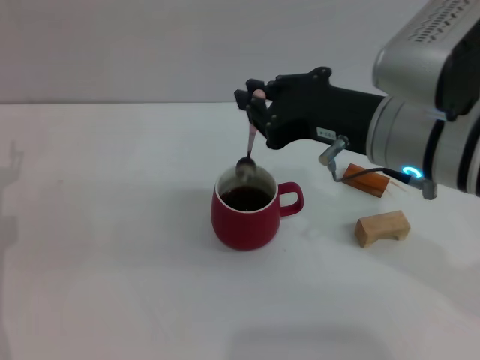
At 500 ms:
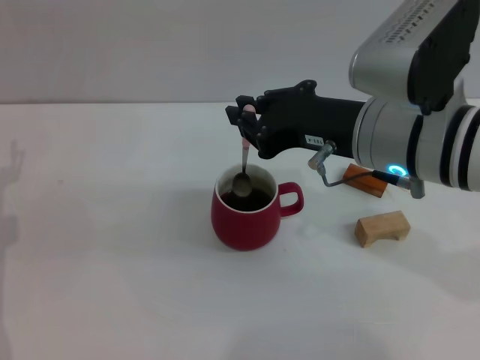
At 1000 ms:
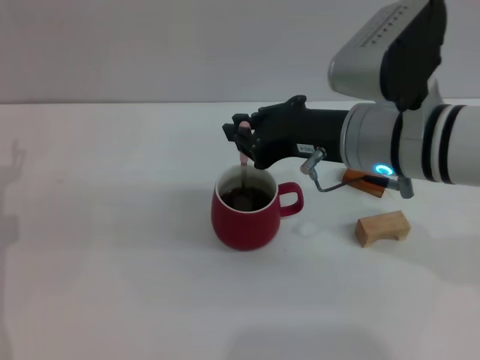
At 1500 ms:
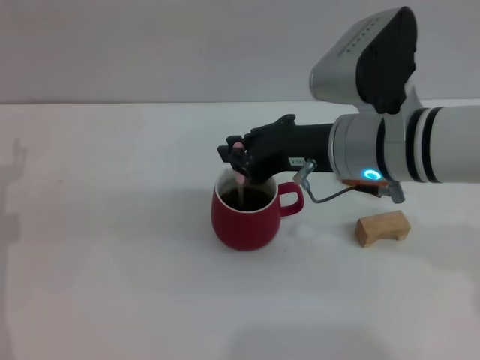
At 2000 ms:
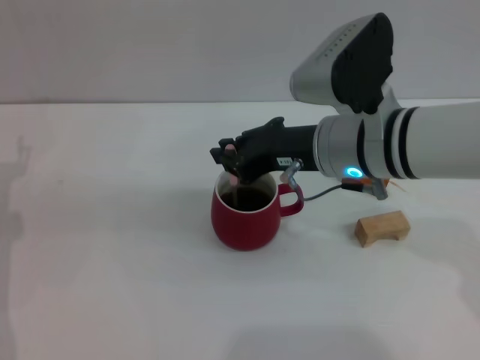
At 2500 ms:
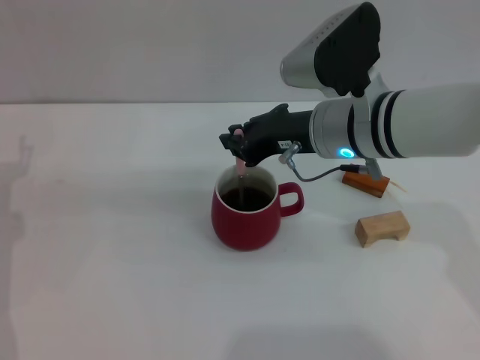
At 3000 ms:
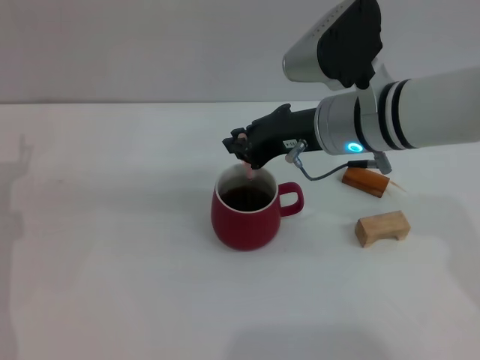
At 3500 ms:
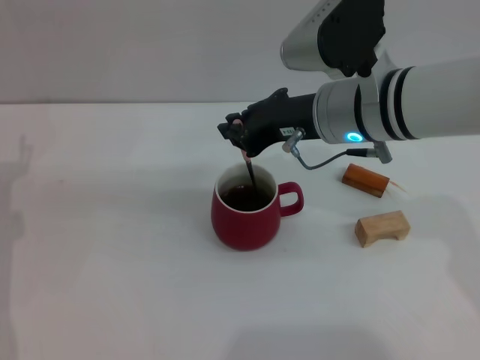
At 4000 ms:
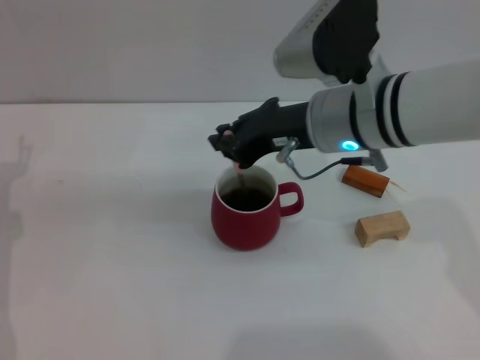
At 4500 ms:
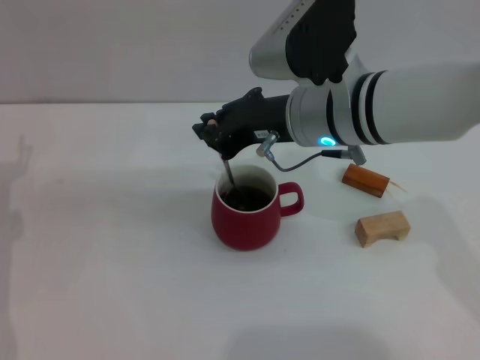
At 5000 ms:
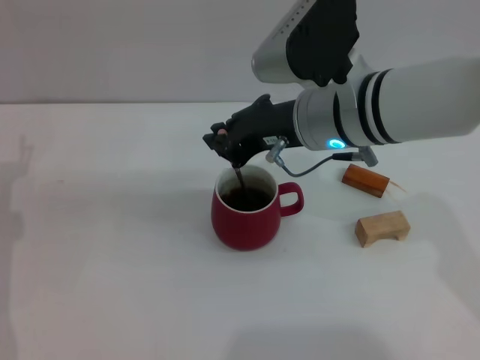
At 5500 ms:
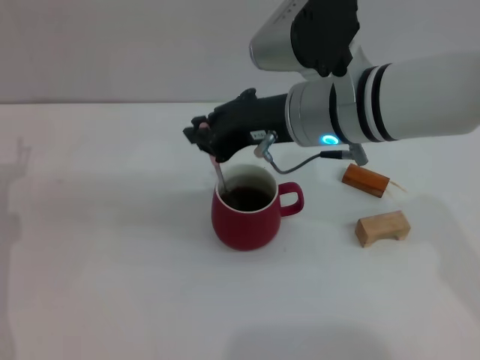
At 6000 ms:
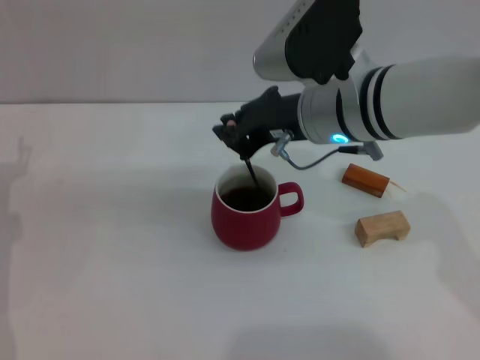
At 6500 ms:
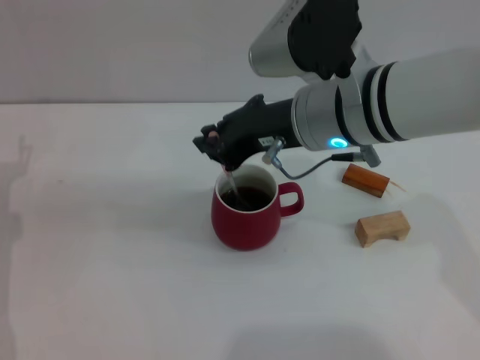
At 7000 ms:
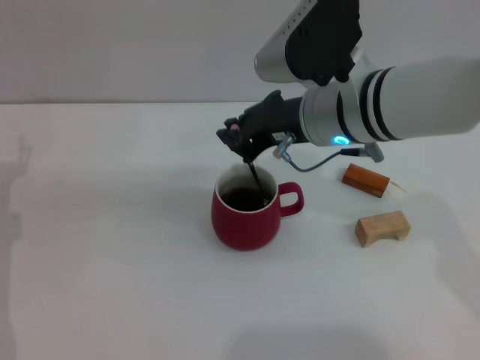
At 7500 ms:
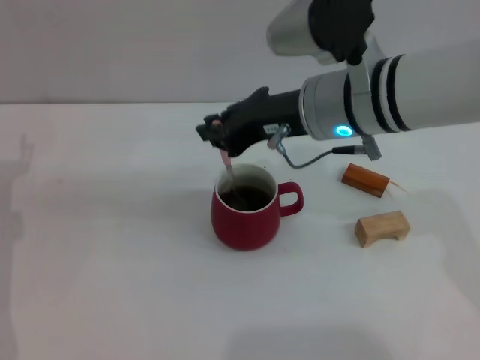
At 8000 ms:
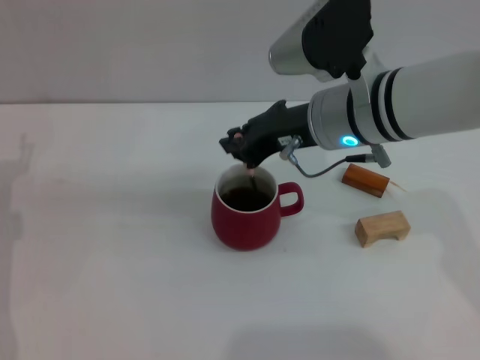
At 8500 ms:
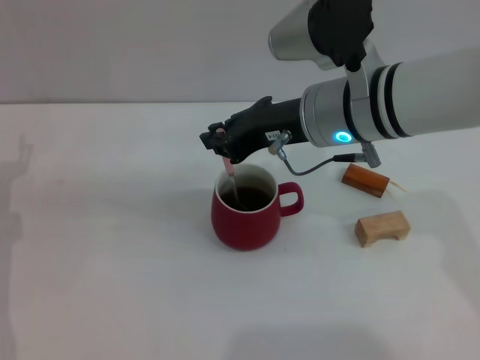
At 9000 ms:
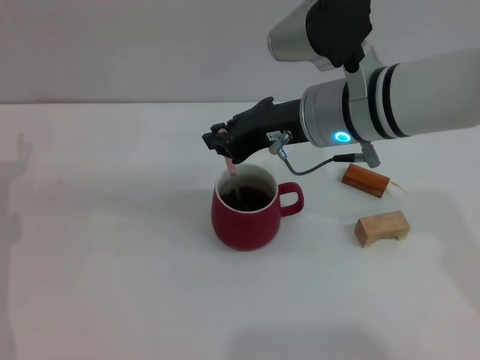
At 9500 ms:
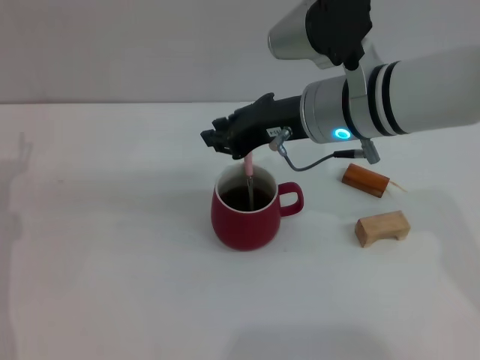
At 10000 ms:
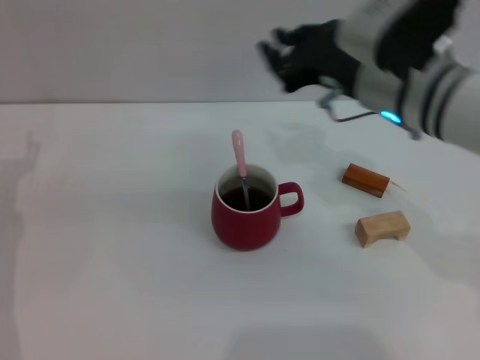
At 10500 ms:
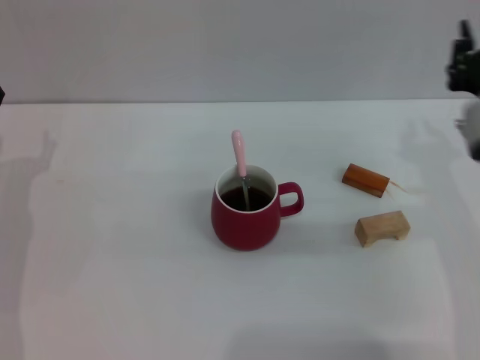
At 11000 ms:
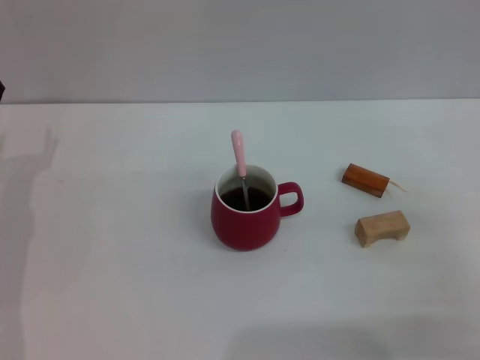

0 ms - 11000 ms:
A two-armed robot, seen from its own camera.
Task of the whole recording: Move the red cup to the center, lift the pink spoon, stir it three times in the cup, and put the spoon into the cup.
Step, 0 ms - 9000 ms: Stir the coffee in the cup with the right gripper.
0 ms - 2000 ms: The right gripper goes roughly 5 cm forward.
2000 ms - 9000 ms: The grippers stay close to where they were, moving slightly.
9000 ms - 11000 ms: The right gripper shifts approximately 30 cm to the right, backward and downward.

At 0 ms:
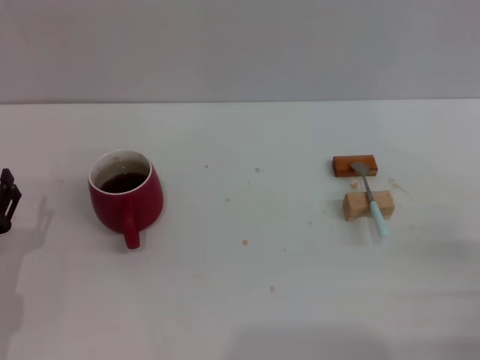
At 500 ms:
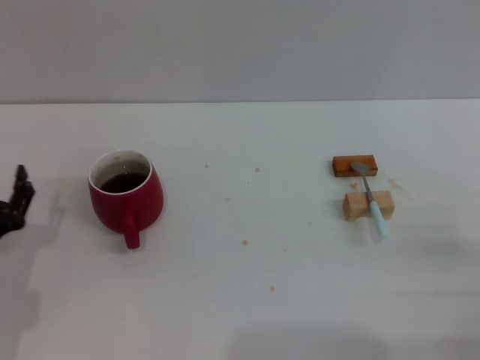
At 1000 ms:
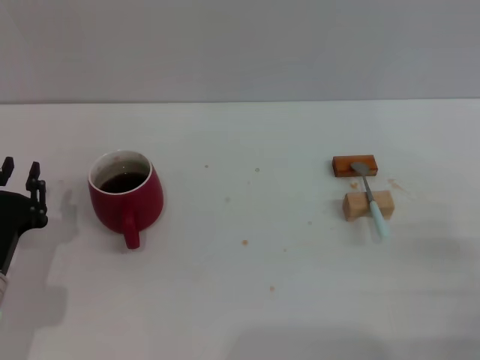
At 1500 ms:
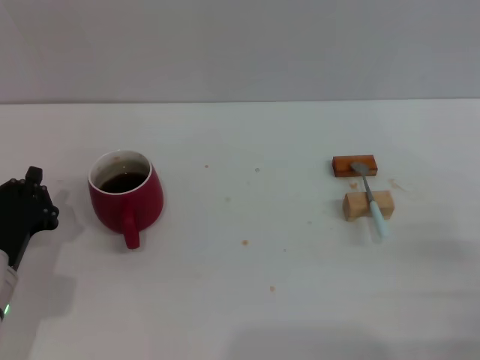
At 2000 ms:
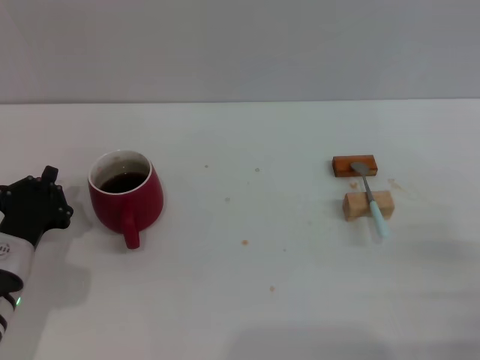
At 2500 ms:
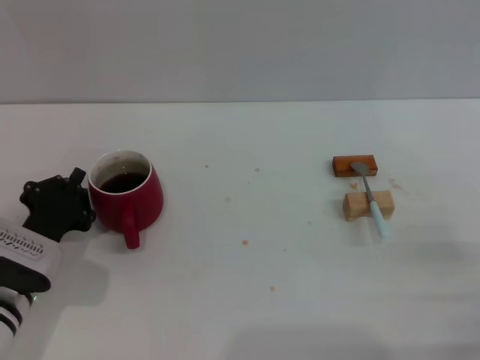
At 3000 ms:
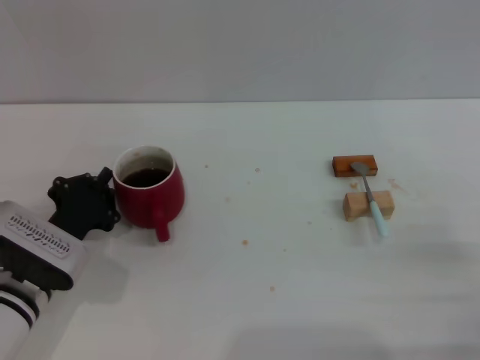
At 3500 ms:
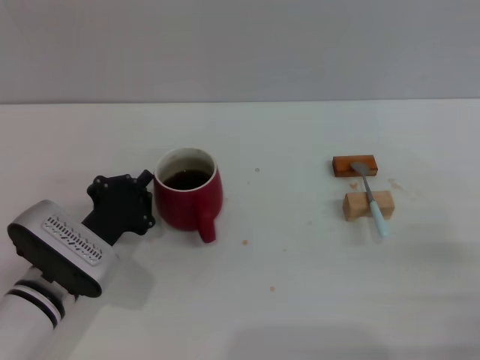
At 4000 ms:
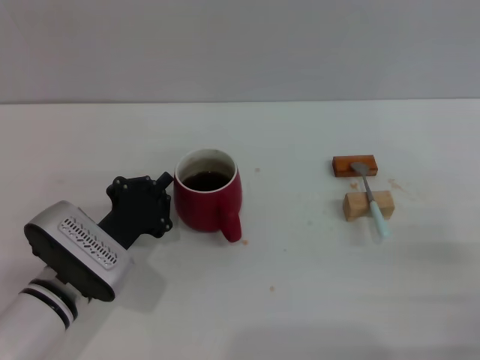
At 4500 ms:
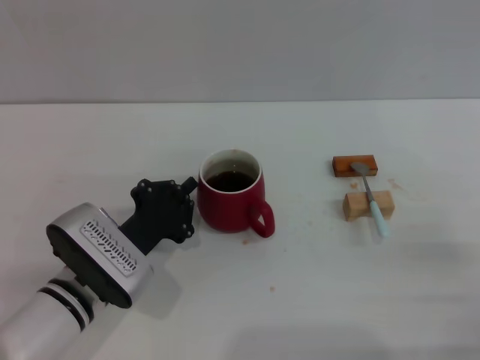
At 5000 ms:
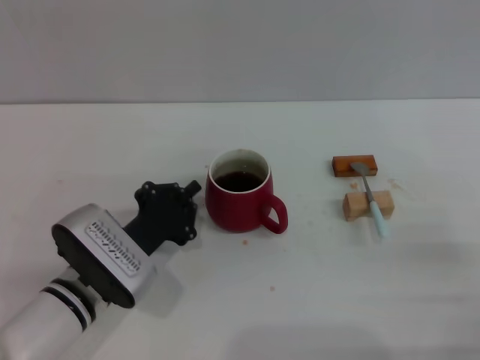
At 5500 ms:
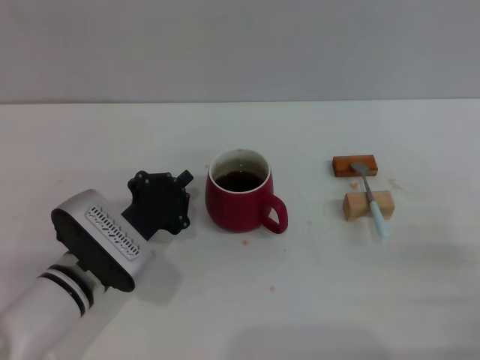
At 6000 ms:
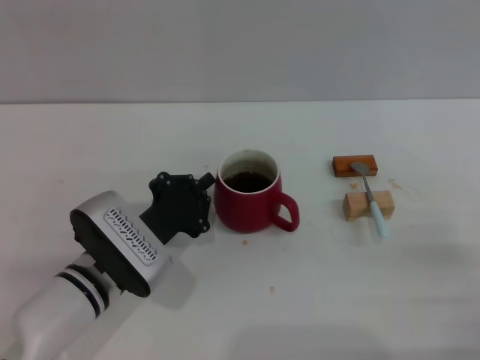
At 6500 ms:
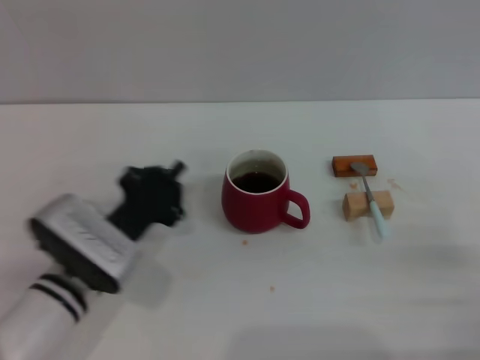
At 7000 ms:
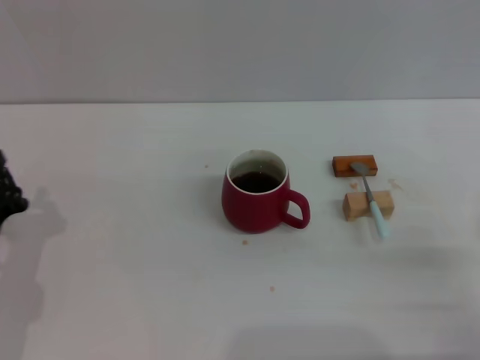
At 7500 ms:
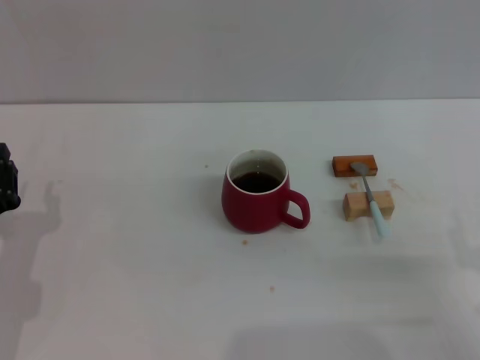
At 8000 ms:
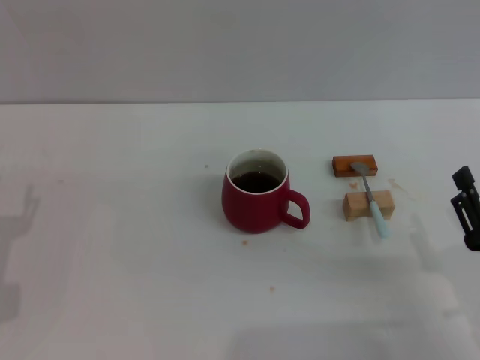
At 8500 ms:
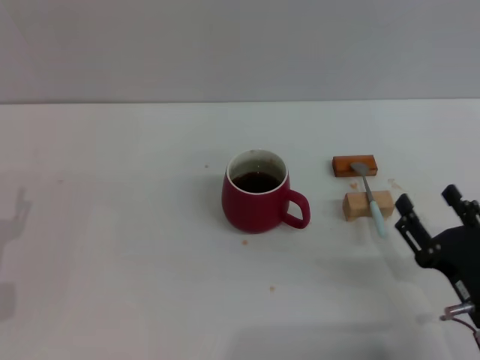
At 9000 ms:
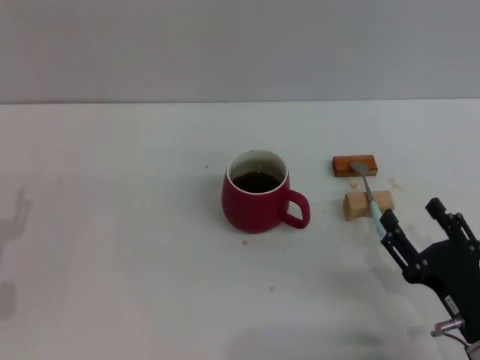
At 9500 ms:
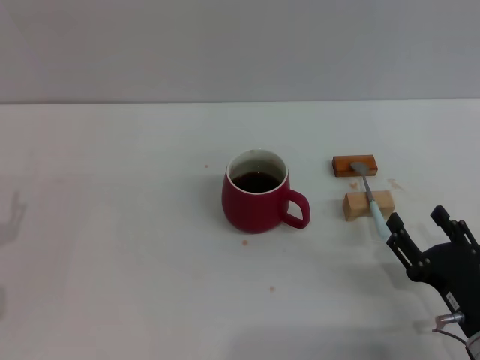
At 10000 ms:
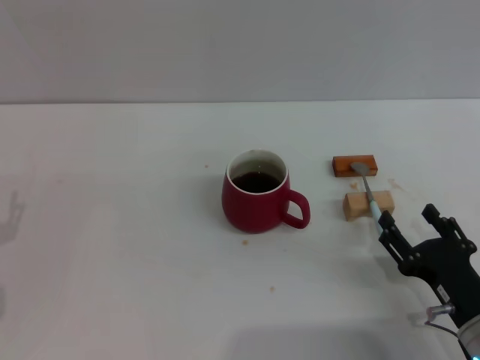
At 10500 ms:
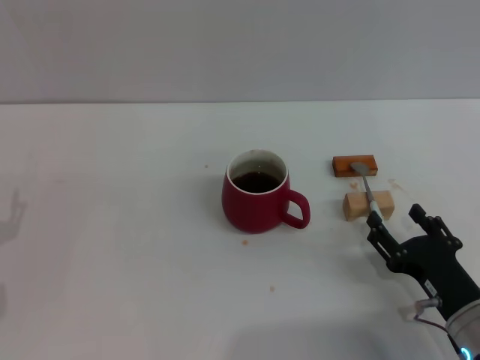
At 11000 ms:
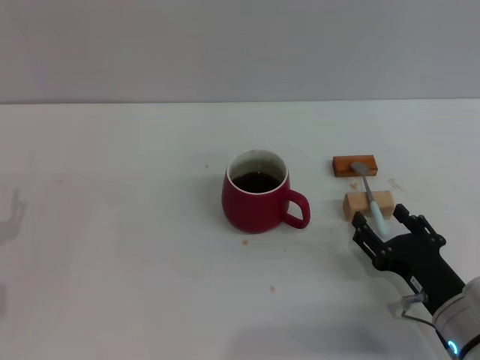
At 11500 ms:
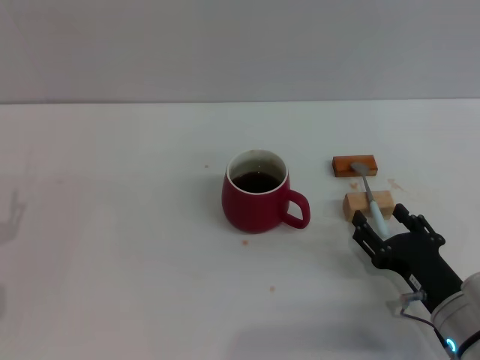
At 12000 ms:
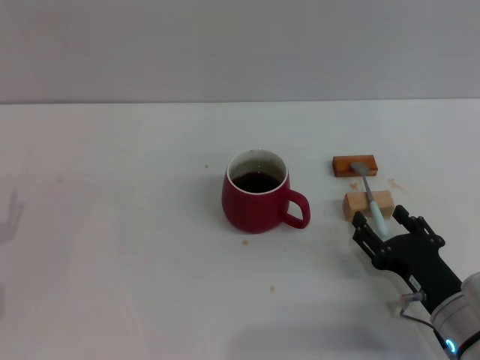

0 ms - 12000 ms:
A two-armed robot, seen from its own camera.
Task of the whole recording: Move the red cup to the center, lift the blue spoon, stir it three times in the cup, and put the spoon into the cup.
Step, 0 ms - 6500 ms: Move the cup with coffee to the center of view with the left gripper.
0 ms - 2000 ms: The left gripper changes place by approximately 5 cm, and closes its fingers.
2000 ms - 4000 ms: The left gripper is displaced to the right by some 5 cm.
4000 ms - 6000 ms: The grippers move only a little.
6000 ms - 8000 ms: The right gripper goes some 5 cm to the left, while the left gripper heads to the left, covering about 15 cm, and opens.
8000 ms - 10000 ms: The grippers make only small movements.
10000 ms - 12000 ms: The grippers make only small movements.

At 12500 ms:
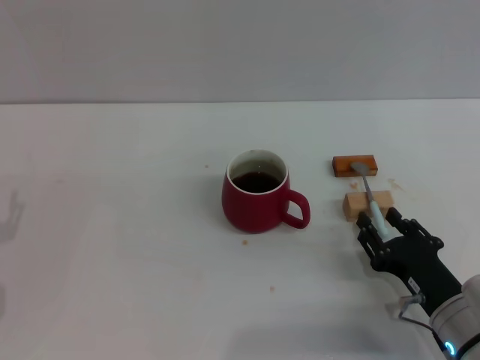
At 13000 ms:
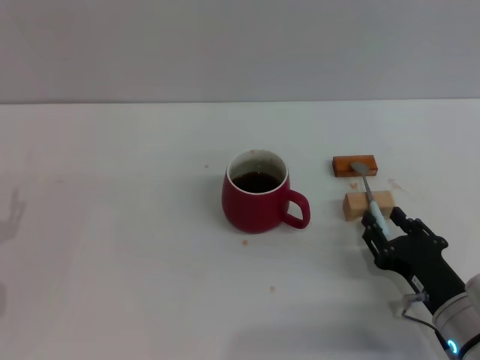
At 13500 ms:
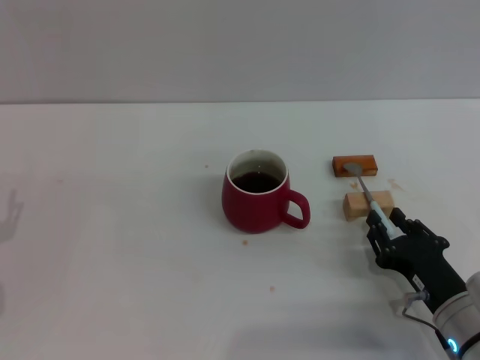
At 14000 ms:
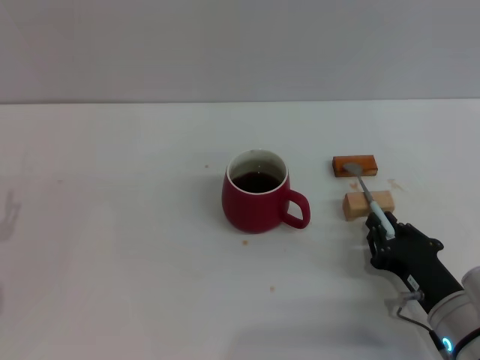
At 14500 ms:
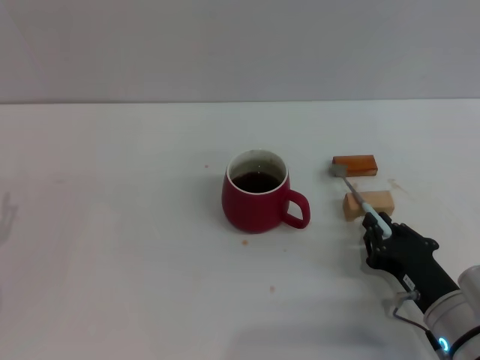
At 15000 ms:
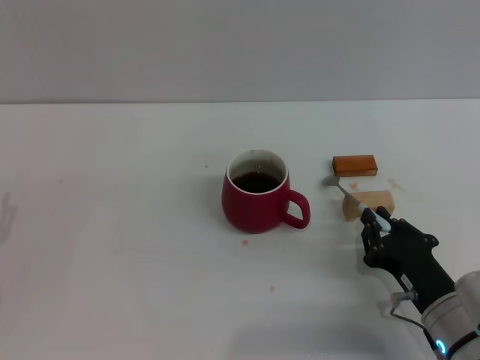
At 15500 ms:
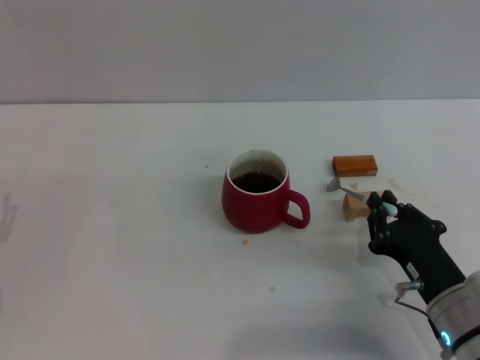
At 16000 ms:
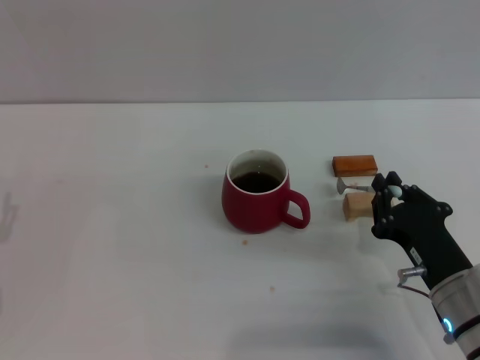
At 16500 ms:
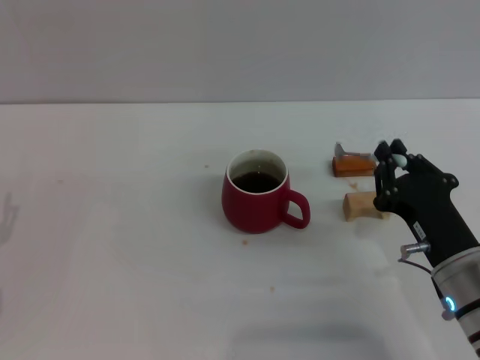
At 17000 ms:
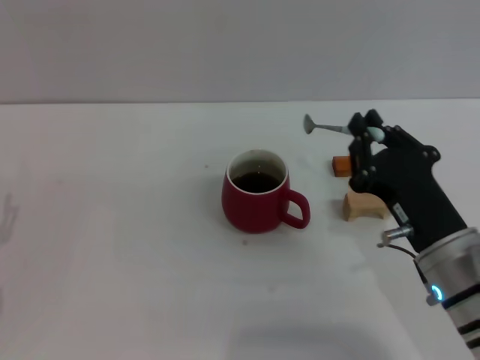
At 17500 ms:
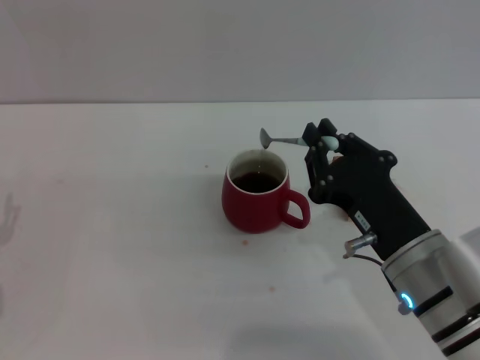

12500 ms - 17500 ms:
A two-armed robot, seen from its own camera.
Task of the whole recording: Move the red cup to the center, lift the blue spoon, stir it three times in the cup, and put the spoon into the cup.
Step, 12500 ms - 16500 ms: Pick up the spoon with the right gripper.
12500 ms - 15000 ms: The right gripper closes its fingers.
15000 ms - 17500 ms: The right gripper shifts some 10 cm upward and to the left.
